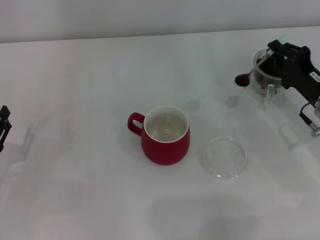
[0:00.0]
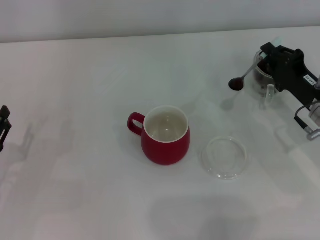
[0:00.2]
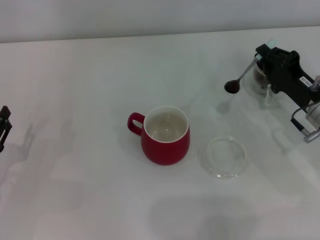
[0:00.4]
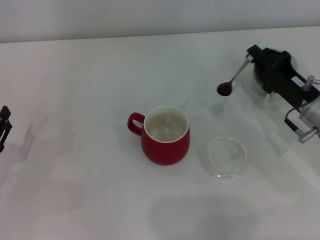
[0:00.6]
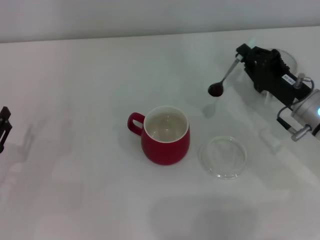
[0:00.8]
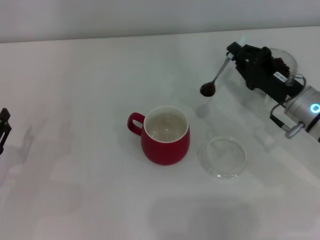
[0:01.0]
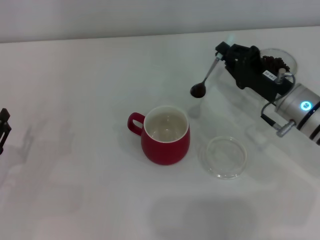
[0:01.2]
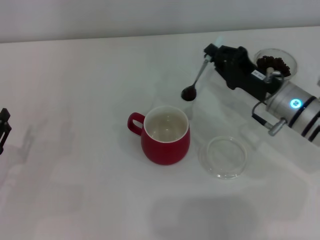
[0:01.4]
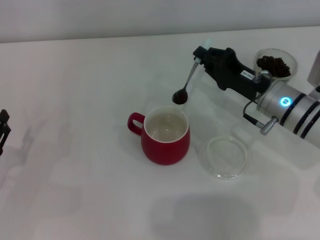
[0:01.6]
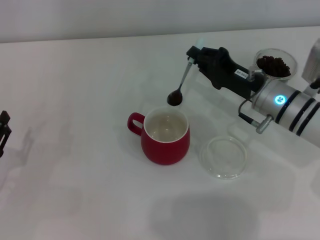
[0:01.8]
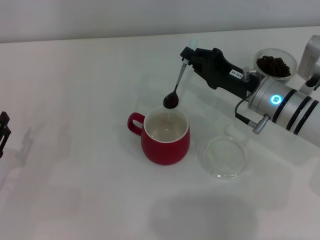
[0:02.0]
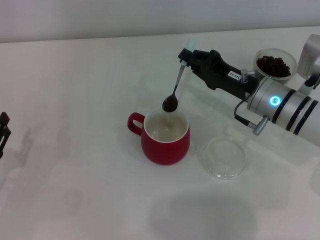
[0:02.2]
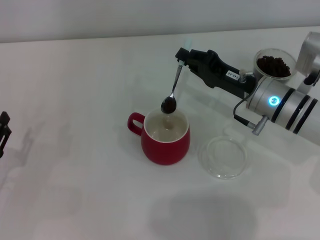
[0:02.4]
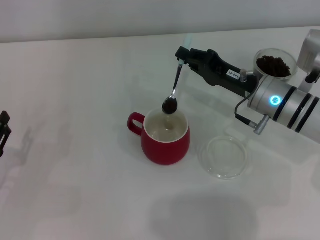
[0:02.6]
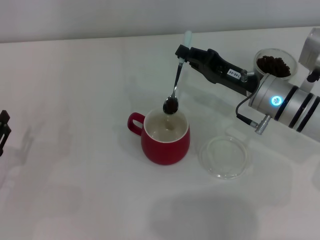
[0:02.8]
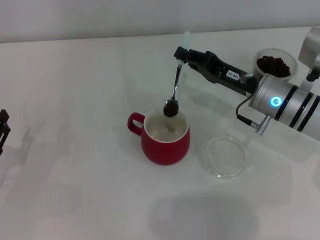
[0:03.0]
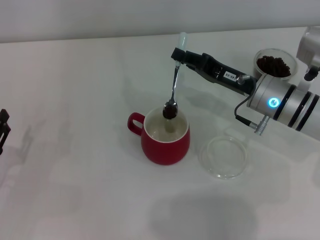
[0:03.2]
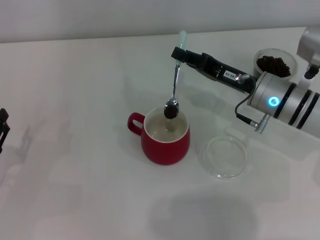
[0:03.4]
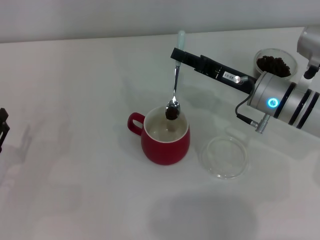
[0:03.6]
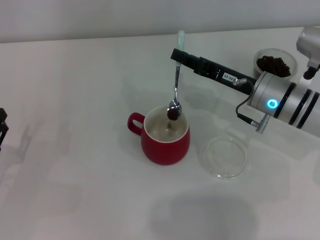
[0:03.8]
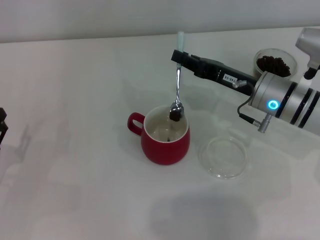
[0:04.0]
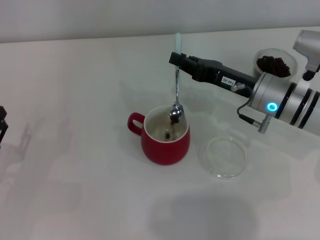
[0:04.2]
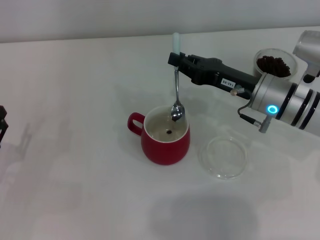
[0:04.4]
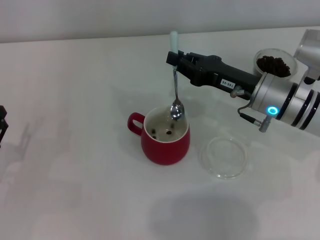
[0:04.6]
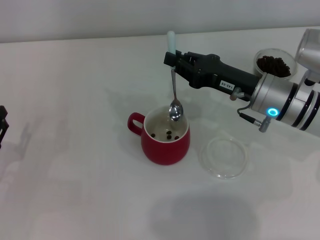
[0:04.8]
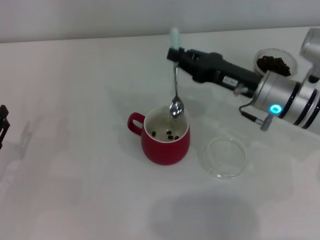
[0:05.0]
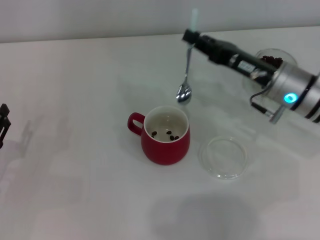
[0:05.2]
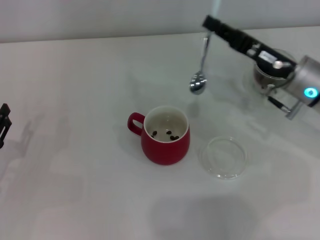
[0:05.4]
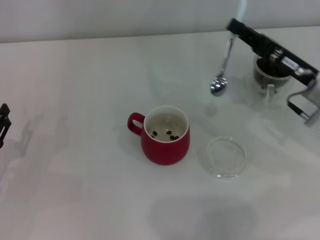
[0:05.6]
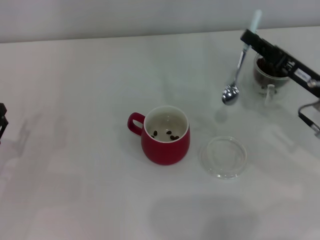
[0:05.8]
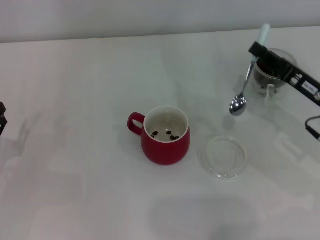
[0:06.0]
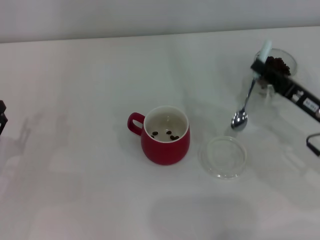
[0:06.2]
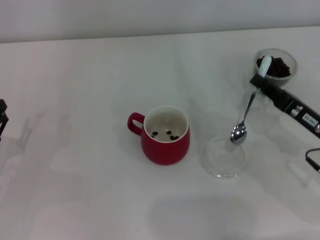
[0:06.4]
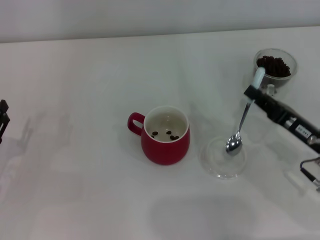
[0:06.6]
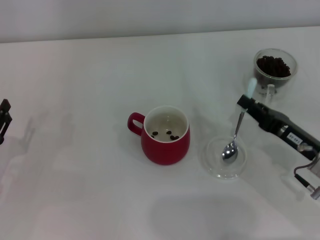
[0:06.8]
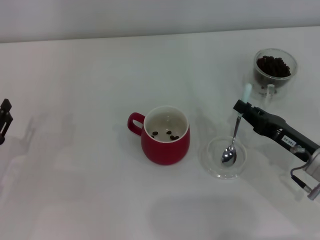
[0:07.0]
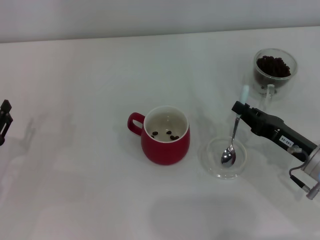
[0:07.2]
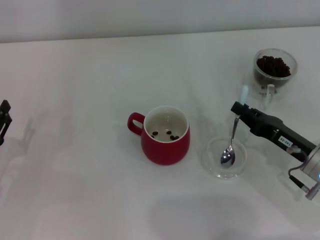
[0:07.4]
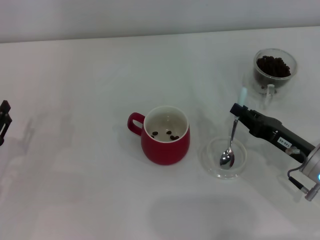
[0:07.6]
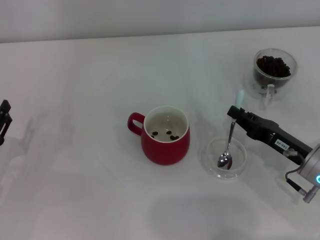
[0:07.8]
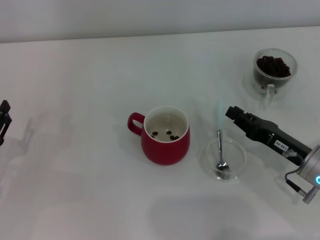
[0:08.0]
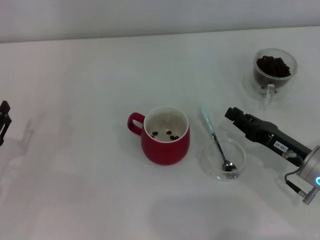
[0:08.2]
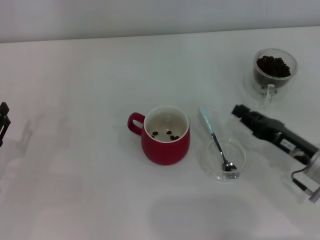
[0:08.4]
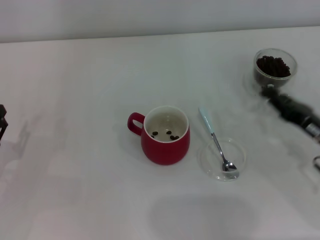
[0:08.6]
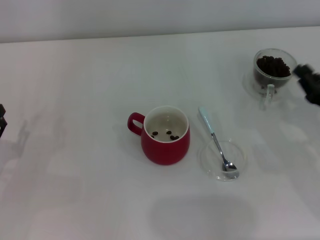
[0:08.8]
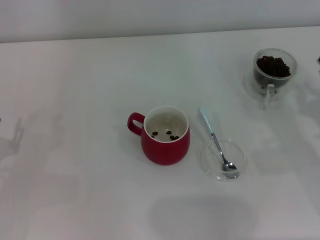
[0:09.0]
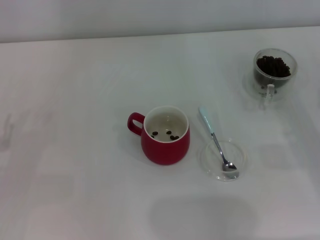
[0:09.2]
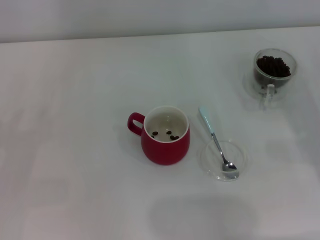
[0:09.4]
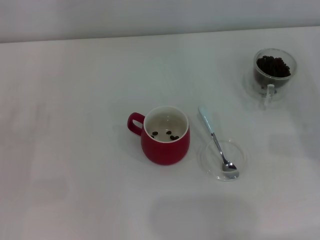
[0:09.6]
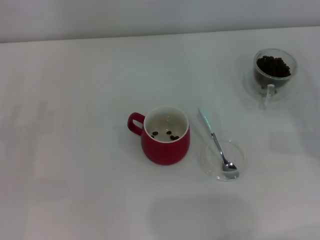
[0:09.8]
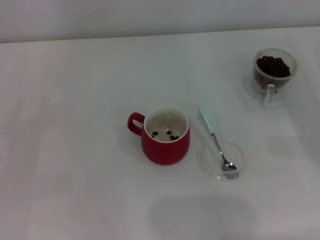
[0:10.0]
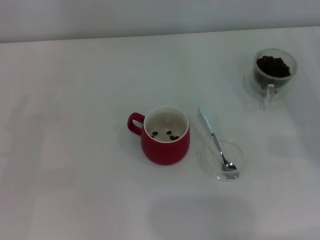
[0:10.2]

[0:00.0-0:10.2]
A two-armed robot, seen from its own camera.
Task of the whole recording: Use a blue spoon to take out the coffee beans from the glass and pour them into the red cup.
Step, 0:00.0 to 0:04.8: Scoop a spoonful of beans into the cup with the right gripper.
Step, 0:05.0 to 0:08.2: Place the spoon back in its original place with the right gripper.
0:00.0 to 0:01.4: The right gripper moves to the left, approximately 5 cm.
0:04.4 to 0:05.8: The right gripper heads to the right, covering about 10 cm.
0:05.8 to 0:07.2: The right gripper moves backward and downward, roughly 10 cm.
0:07.2 to 0:08.8: The right gripper heads to the right, covering roughly 5 cm.
0:08.8 to 0:10.2: The right gripper travels to the right by about 5 cm.
